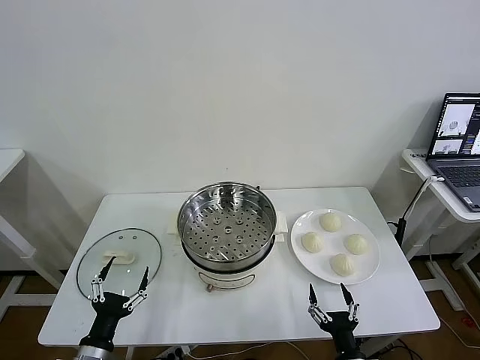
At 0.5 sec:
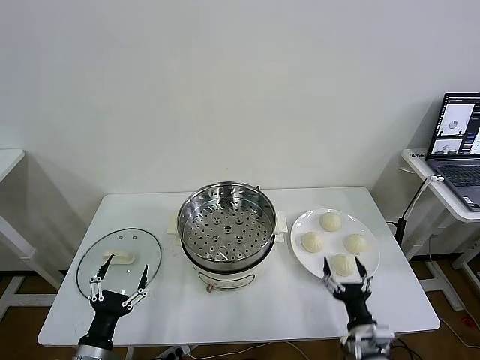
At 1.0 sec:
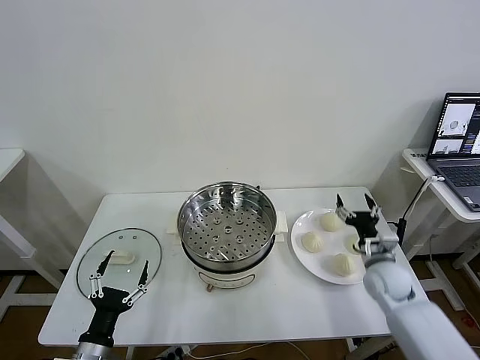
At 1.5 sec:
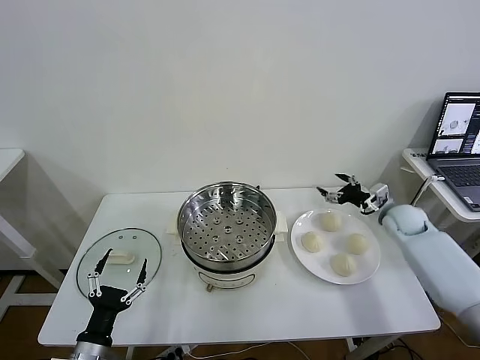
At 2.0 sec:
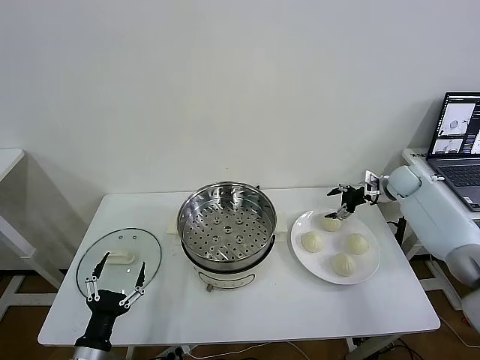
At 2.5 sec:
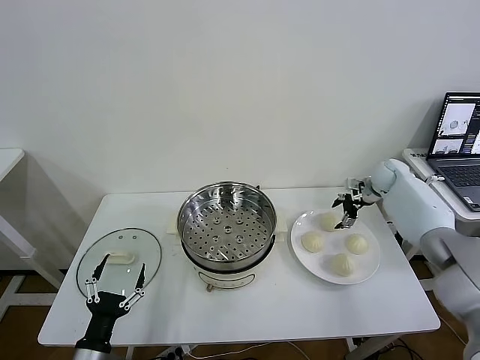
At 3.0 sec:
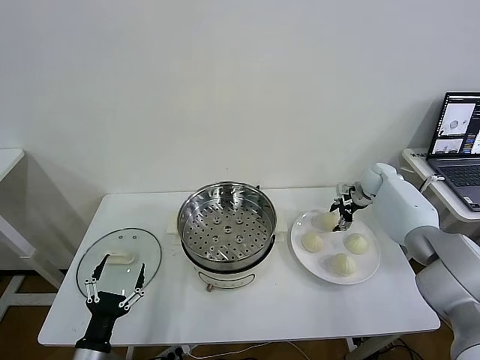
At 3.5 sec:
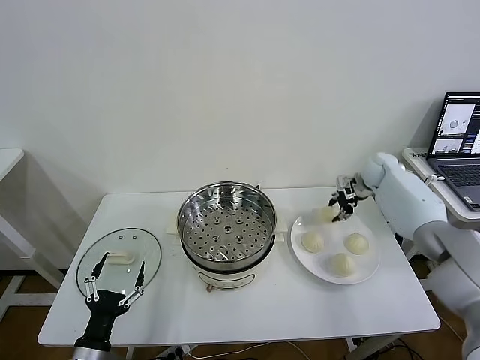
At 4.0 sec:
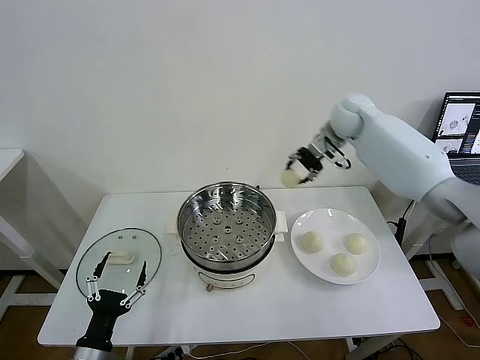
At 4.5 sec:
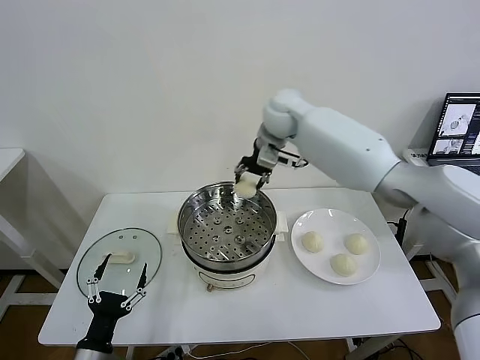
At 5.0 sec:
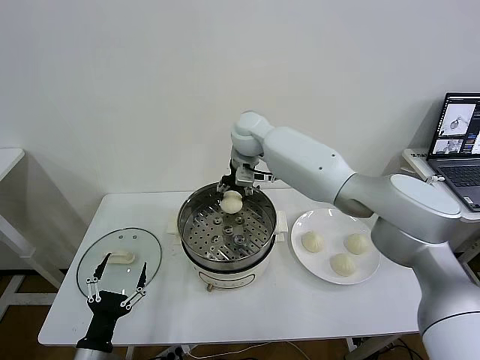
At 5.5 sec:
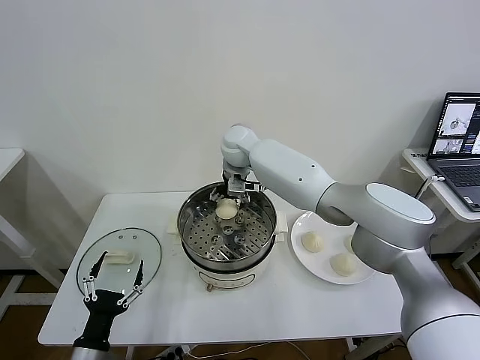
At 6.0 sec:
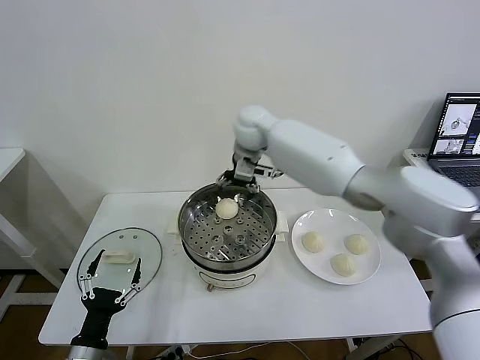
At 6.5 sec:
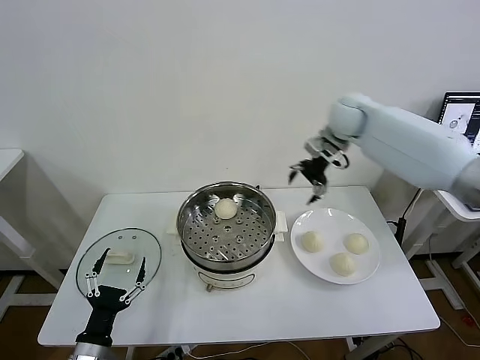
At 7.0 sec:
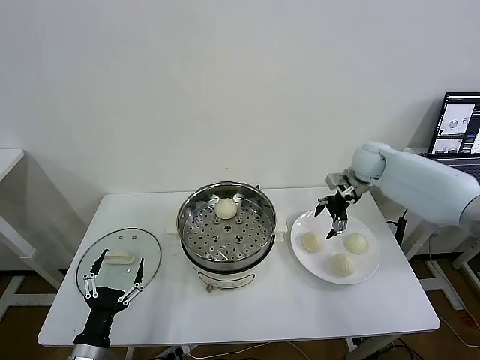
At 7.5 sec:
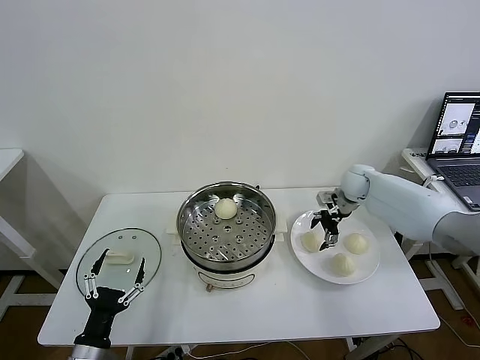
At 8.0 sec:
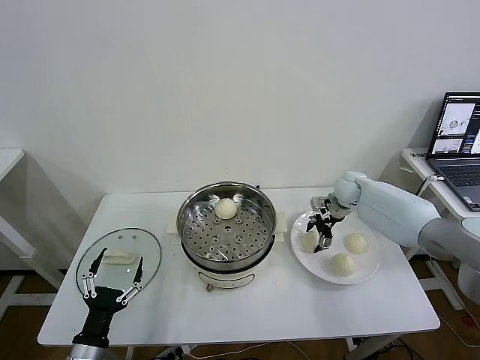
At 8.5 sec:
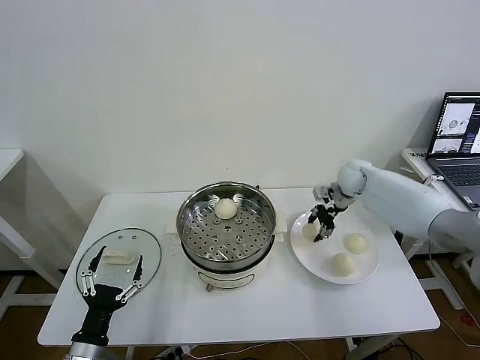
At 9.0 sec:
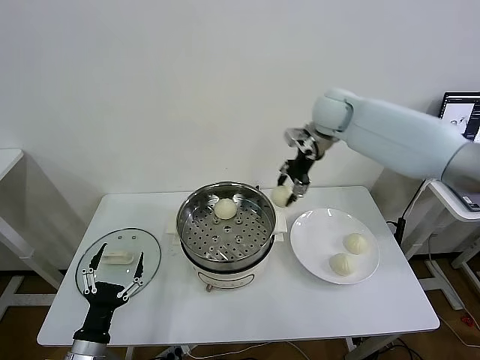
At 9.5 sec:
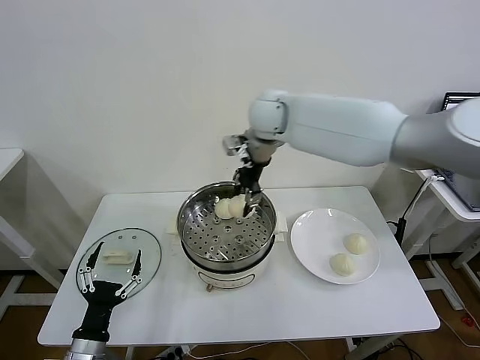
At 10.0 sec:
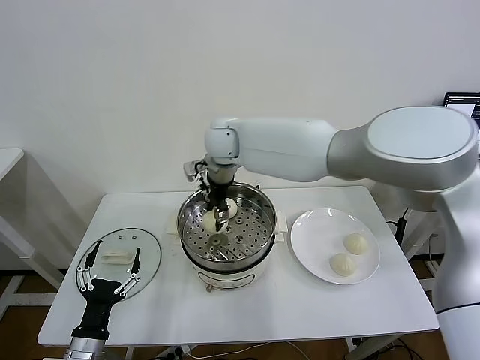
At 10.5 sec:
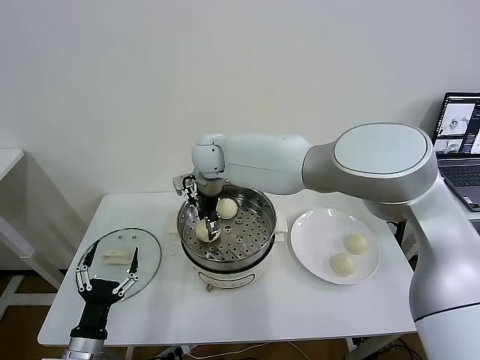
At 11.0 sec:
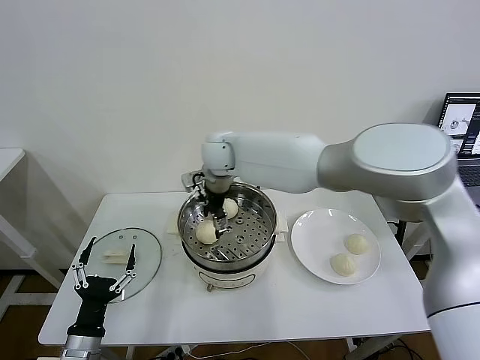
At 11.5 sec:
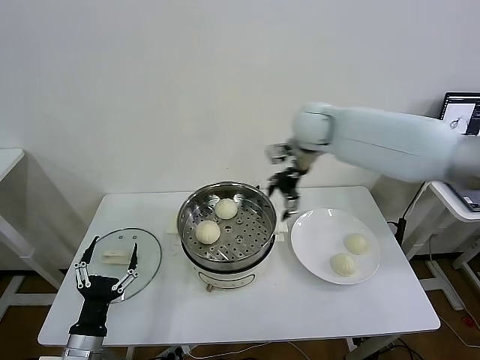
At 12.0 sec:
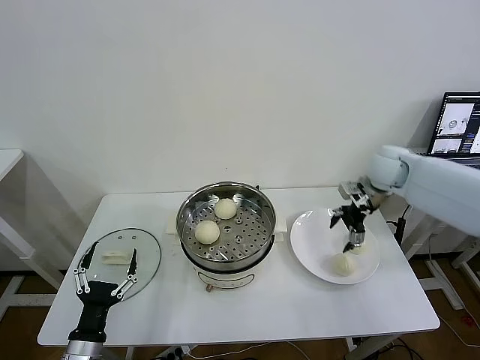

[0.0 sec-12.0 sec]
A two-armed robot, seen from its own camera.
Task of the whole recording: take steamed baozi put them in steamer then cover it.
Step, 0.0 sec to 3.0 sec: Grasp the baozi in the plate with right gripper.
Step, 3.5 sec to 5.5 sec: Place the baozi on the steamer with right gripper.
Step, 6.0 sec to 8.0 sec: Grasp the baozi in the plate with right gripper.
Step, 8.5 sec to 10.5 sec: Place the baozi on the steamer with right gripper.
2.0 sec to 4.0 sec: The right gripper travels to the left and upward by approximately 30 cm, and closes.
4.0 sec to 6.0 sec: The right gripper goes some 15 cm to the left, and opens its fingers.
6.0 sec to 8.0 sec: The right gripper goes some 35 cm to the right and downward, and closes up.
8.0 sec to 10.0 sec: The right gripper heads to the left and upward, covering some 40 cm, and closes up.
10.0 sec to 12.0 sec: The right gripper moves to the right, roughly 40 cm, and opens its fingers.

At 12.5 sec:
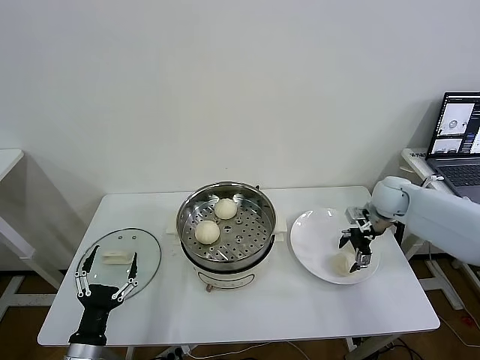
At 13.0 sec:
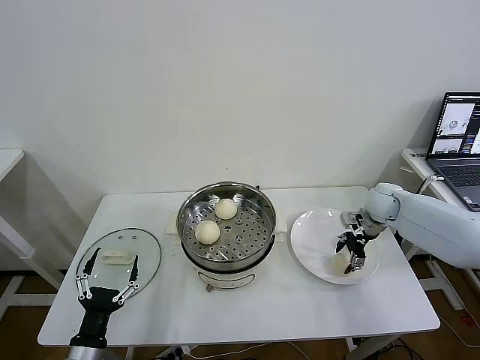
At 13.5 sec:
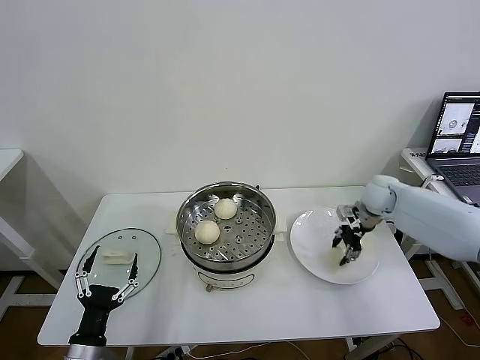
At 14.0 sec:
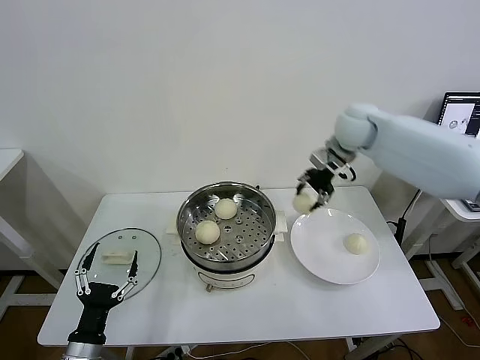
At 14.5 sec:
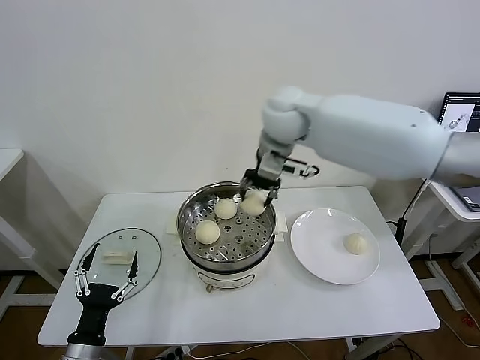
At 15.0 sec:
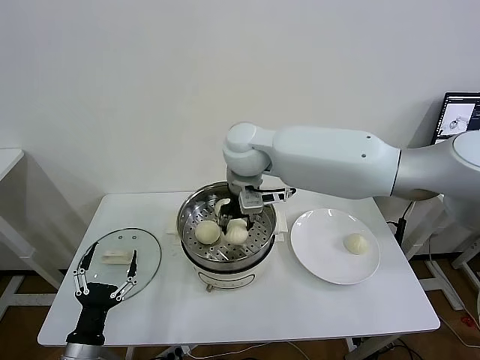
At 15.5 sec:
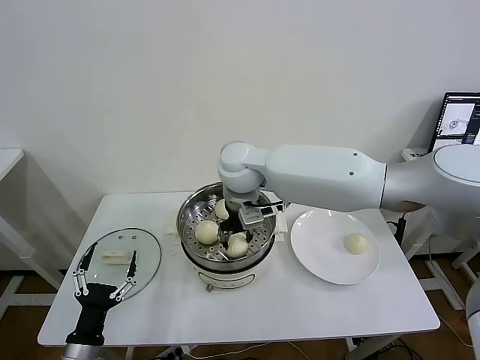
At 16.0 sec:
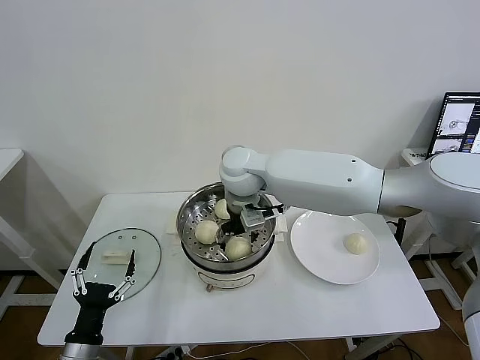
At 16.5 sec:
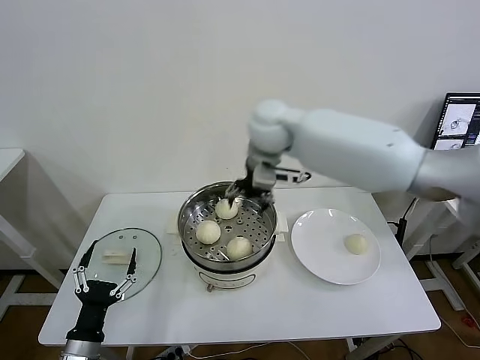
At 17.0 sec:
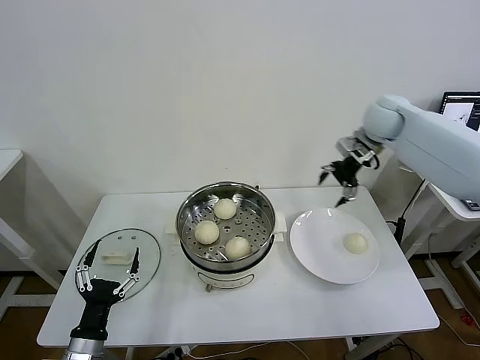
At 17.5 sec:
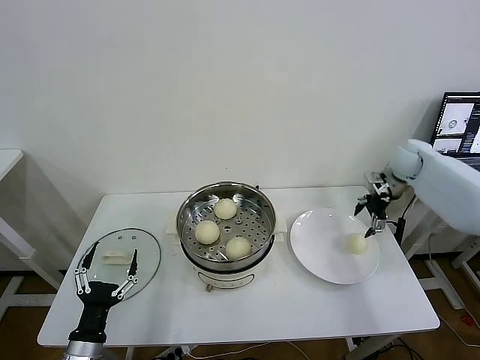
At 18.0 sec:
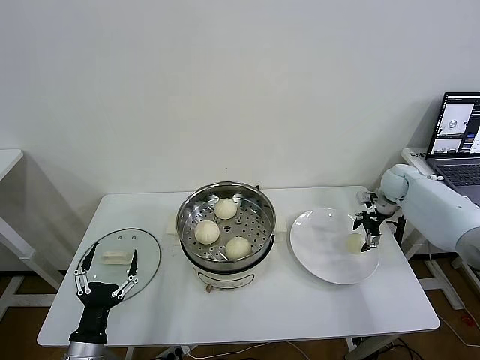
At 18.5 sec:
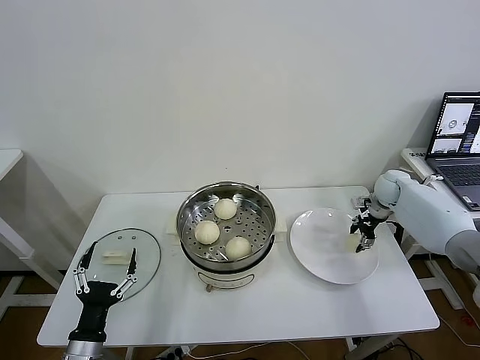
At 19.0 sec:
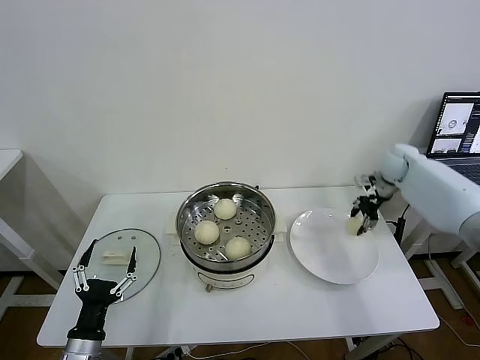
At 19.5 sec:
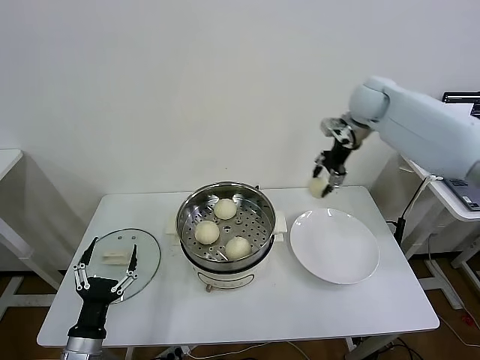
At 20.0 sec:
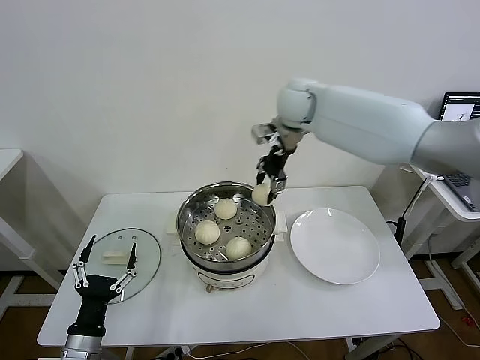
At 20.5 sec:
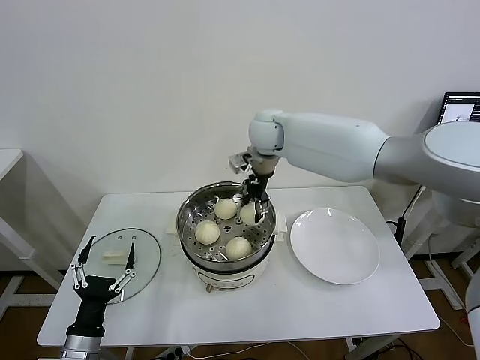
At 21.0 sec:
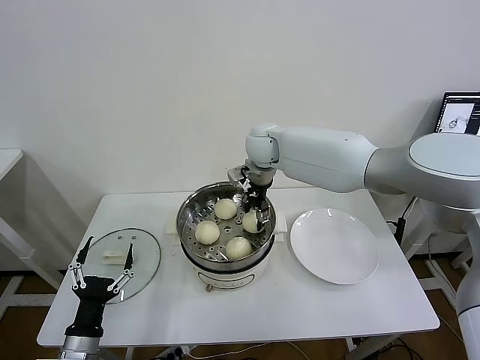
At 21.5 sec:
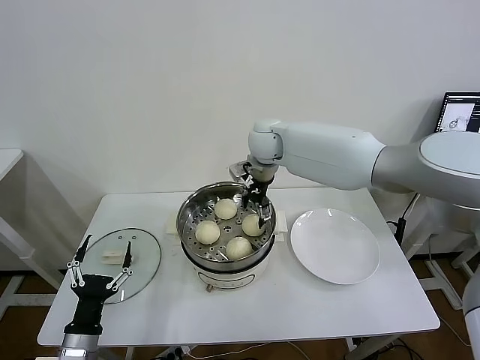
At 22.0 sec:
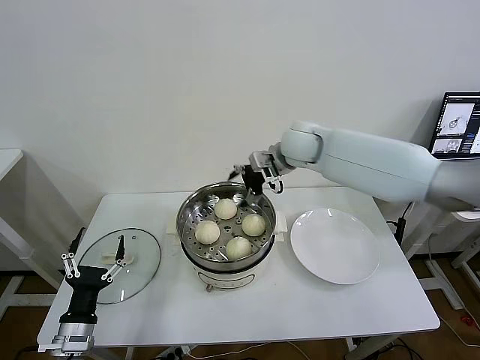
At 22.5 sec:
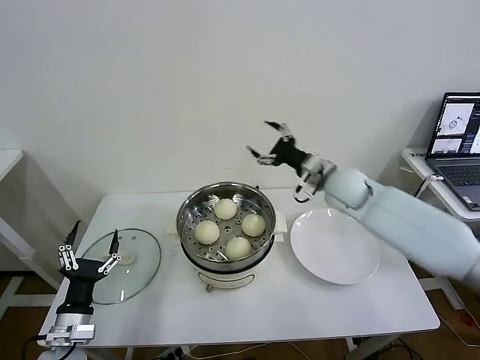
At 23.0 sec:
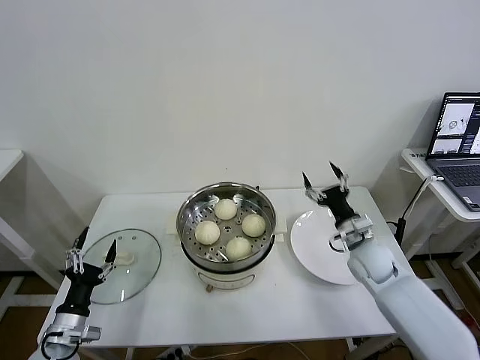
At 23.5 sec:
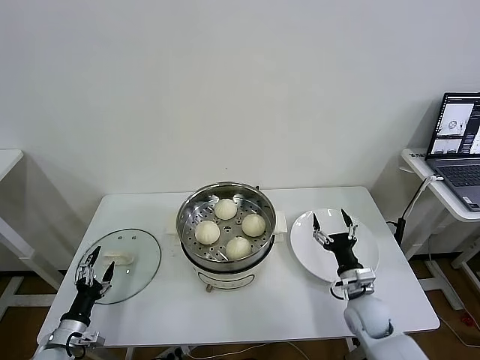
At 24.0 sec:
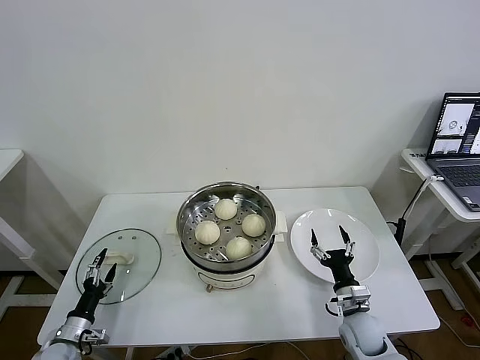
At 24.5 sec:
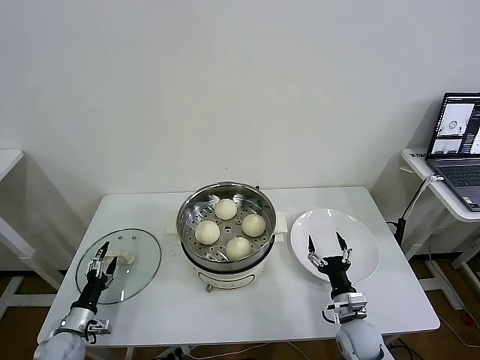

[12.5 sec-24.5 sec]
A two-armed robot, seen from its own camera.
Task of the whole recording: take steamed baozi put them in steamer then cover it.
Step, 13.5 sec to 16.0 sec: Place the baozi on the steamer with right gripper.
Step, 16.5 sec to 18.5 sec: Grasp the baozi in the plate with right gripper.
Step, 19.0 sec to 21.0 sec: Place the baozi on the steamer with right gripper.
12.5 sec to 14.5 sec: The right gripper moves to the left and upward, some 40 cm, and closes up.
14.5 sec to 16.5 sec: The right gripper goes downward and returns, some 10 cm each way, and opens its fingers.
16.5 sec to 18.5 sec: The right gripper moves to the right and downward, approximately 40 cm, and closes.
18.5 sec to 20.5 sec: The right gripper goes about 40 cm to the left and upward.
20.5 sec to 22.5 sec: The right gripper heads to the right, downward and backward, covering approximately 20 cm, and opens up.
22.5 sec to 24.5 sec: The left gripper moves downward, to the left and forward, approximately 20 cm, while the right gripper travels downward and backward by approximately 35 cm.

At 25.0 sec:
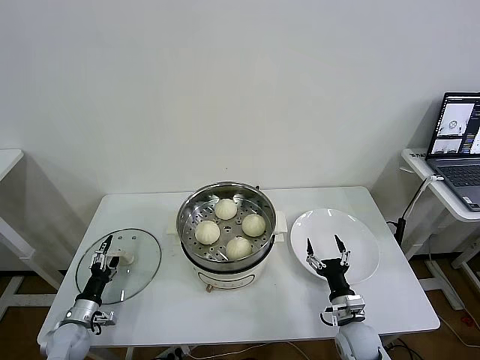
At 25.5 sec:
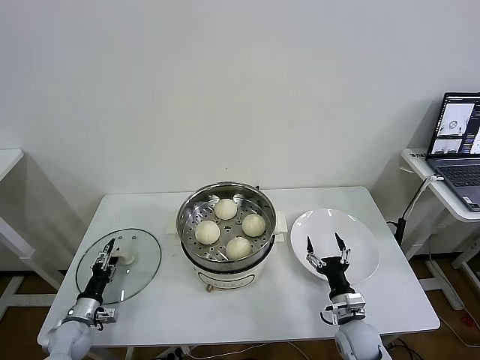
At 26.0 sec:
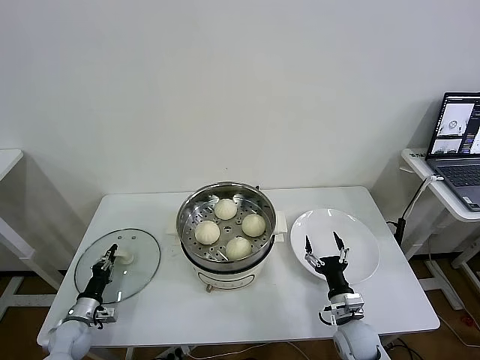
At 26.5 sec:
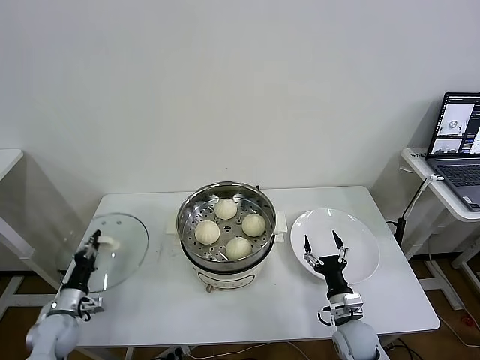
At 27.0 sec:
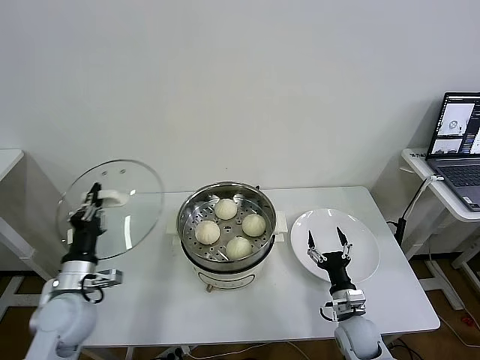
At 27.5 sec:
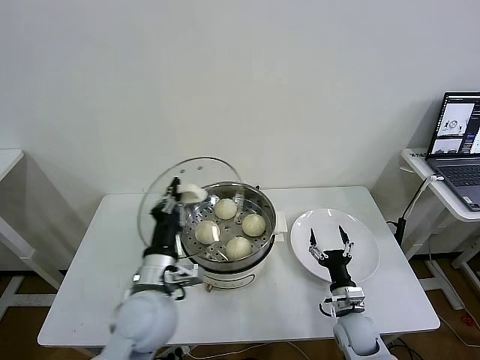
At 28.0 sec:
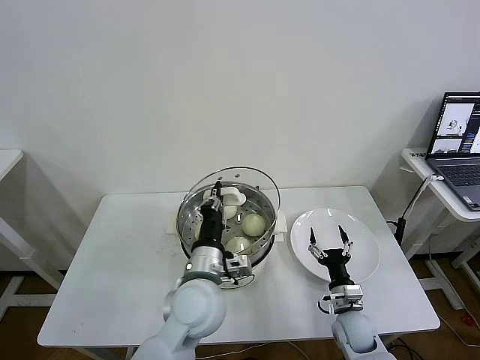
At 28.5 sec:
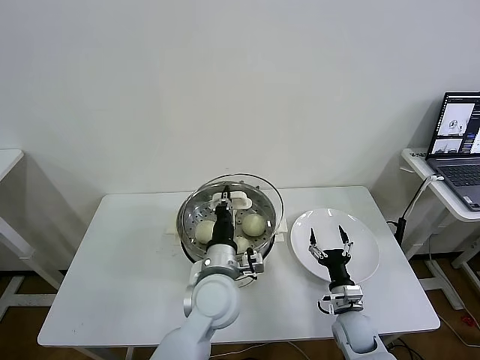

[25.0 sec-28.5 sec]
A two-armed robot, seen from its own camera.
Task of the whole recording: take steamed baozi put them in steamer then cover it.
25.0 sec to 27.0 sec: The left gripper shifts approximately 20 cm upward and to the right, and closes.
27.0 sec to 28.5 sec: The left gripper shifts approximately 30 cm to the right.
